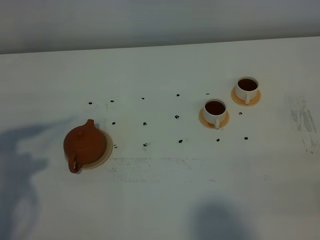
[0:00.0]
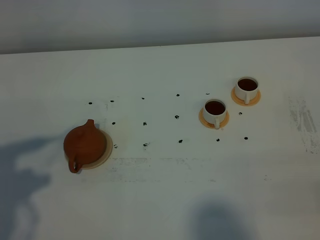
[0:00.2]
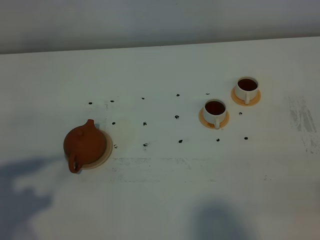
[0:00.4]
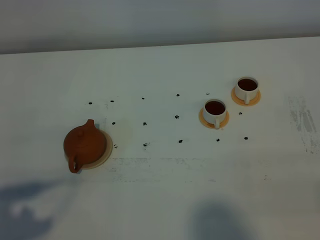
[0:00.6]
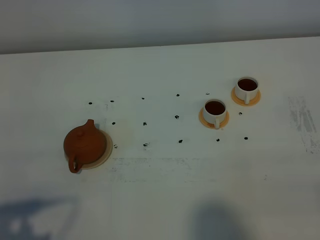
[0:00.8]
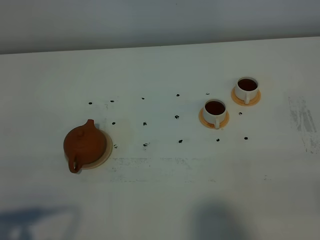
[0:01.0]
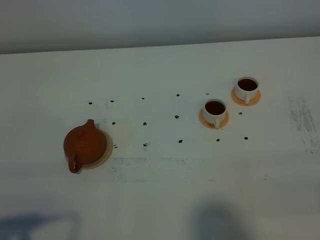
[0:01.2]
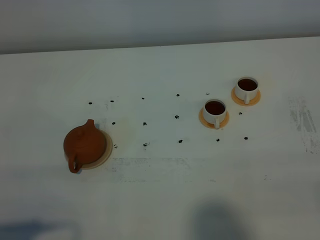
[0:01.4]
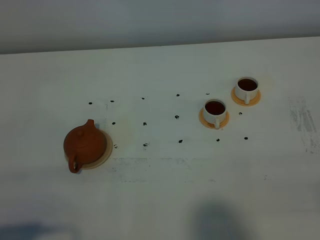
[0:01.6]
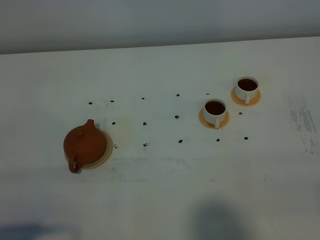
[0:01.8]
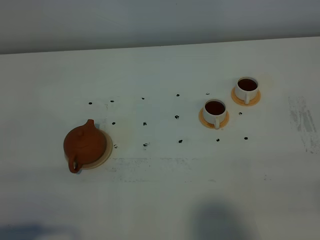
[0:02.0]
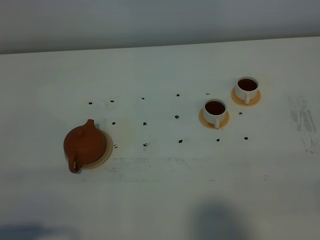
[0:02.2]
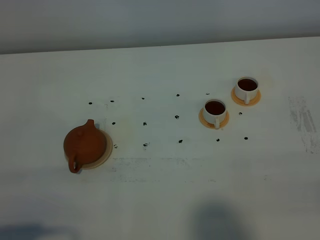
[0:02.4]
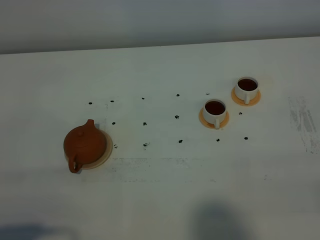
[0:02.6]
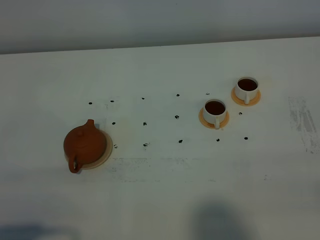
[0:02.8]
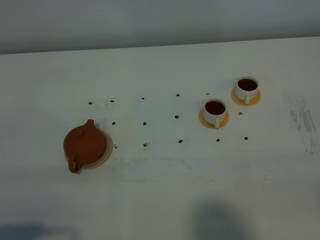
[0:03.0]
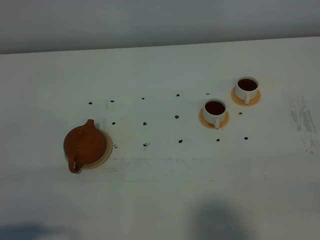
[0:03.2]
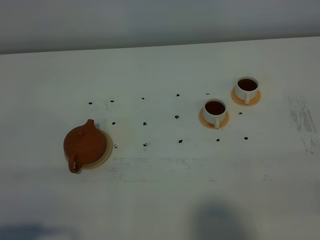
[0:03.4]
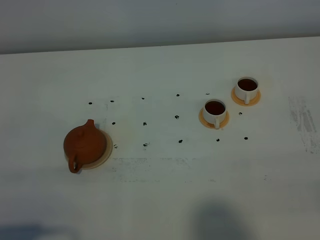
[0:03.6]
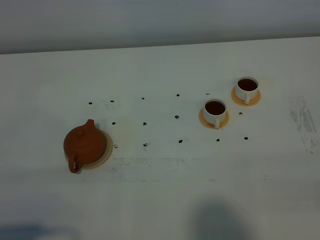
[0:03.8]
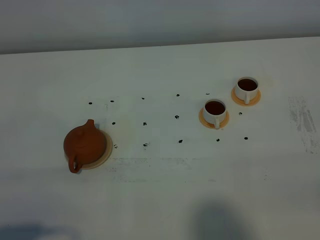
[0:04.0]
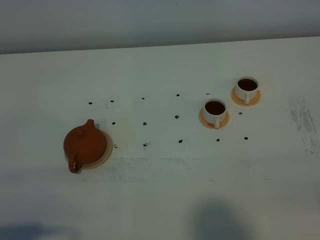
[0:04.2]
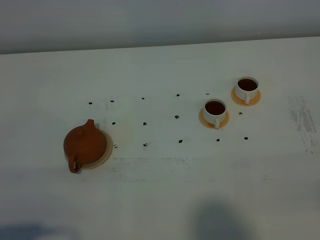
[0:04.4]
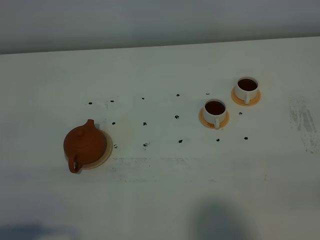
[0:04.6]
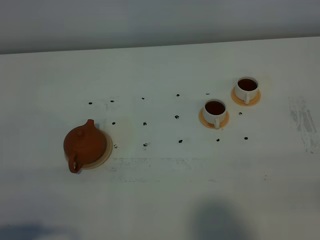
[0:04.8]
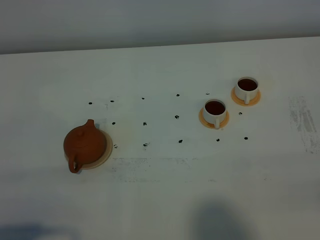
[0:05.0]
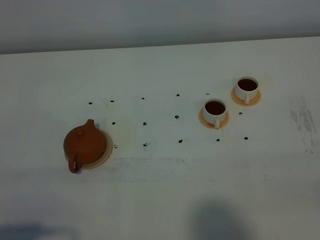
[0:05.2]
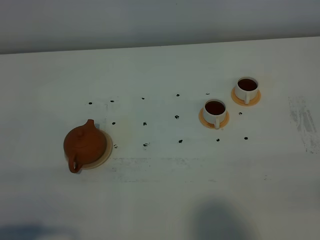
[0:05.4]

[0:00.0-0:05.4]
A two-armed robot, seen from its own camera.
Task of the whole recording: grasp the brown teapot and pour the tea into the two white teacups one by one, put the brown teapot back in its original place.
0:00.0 to 0:01.4: The left gripper shifts some 15 cm backward.
0:01.4 to 0:02.8: Both grippers stay about where they are.
0:04.0 to 0:05.4: Neither gripper changes place.

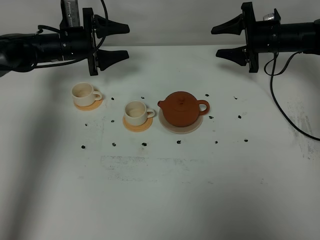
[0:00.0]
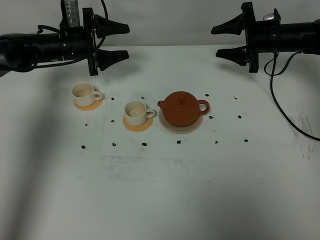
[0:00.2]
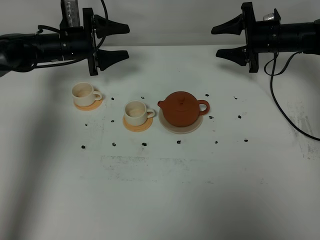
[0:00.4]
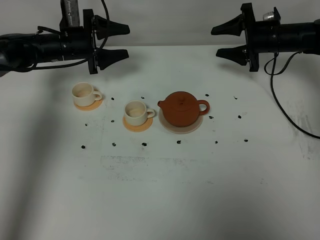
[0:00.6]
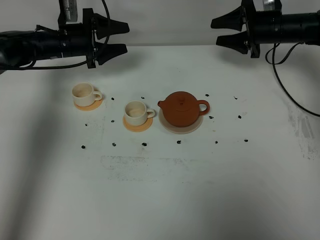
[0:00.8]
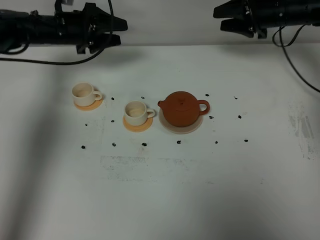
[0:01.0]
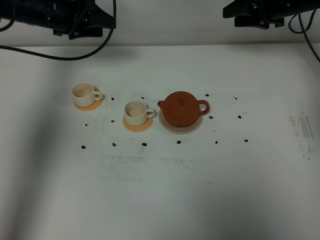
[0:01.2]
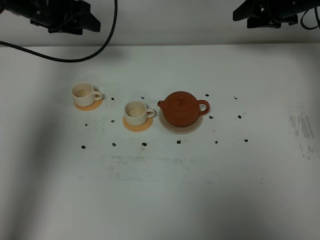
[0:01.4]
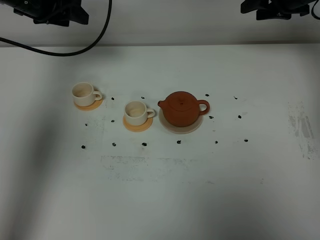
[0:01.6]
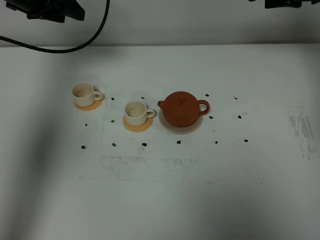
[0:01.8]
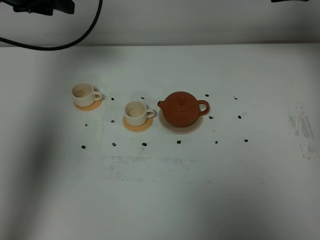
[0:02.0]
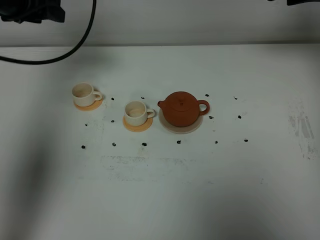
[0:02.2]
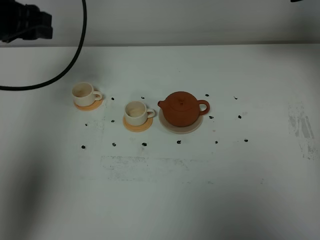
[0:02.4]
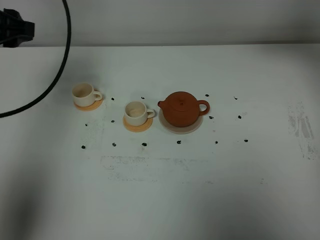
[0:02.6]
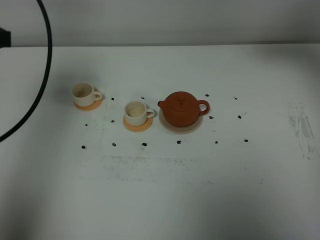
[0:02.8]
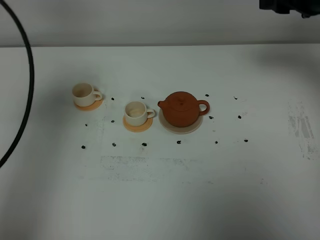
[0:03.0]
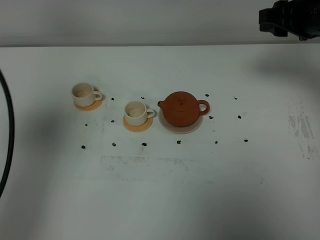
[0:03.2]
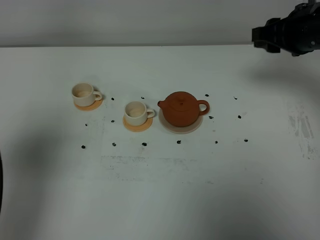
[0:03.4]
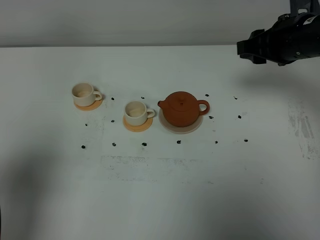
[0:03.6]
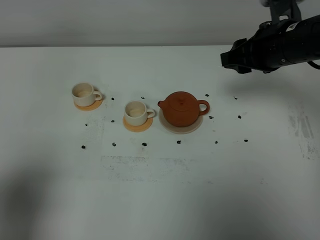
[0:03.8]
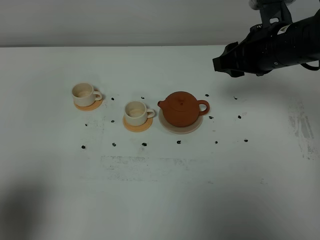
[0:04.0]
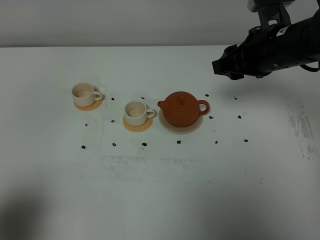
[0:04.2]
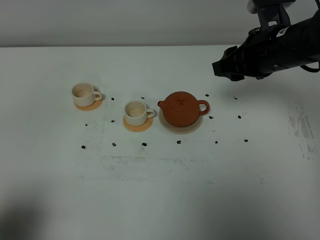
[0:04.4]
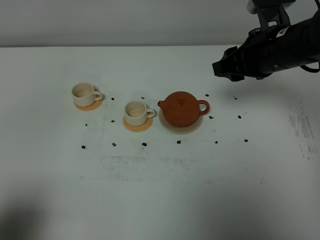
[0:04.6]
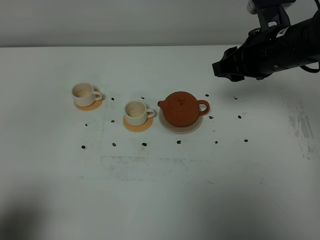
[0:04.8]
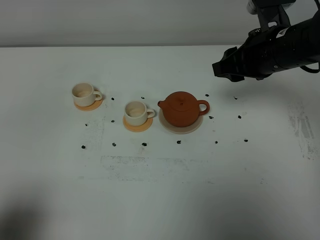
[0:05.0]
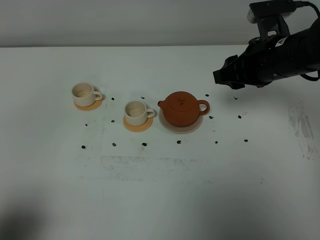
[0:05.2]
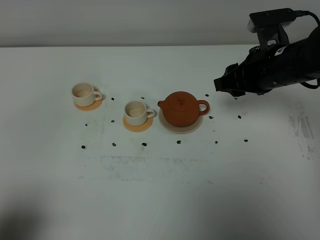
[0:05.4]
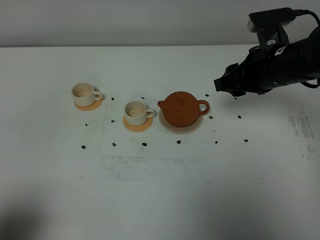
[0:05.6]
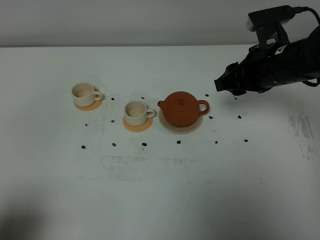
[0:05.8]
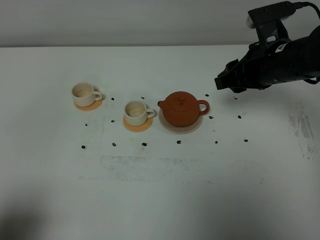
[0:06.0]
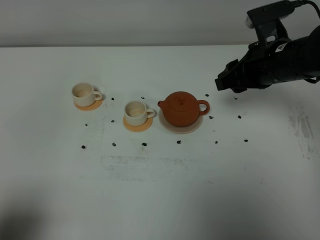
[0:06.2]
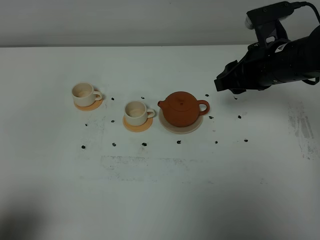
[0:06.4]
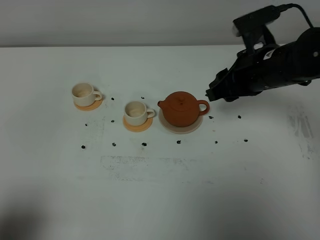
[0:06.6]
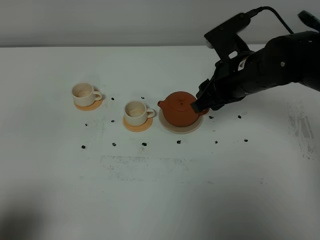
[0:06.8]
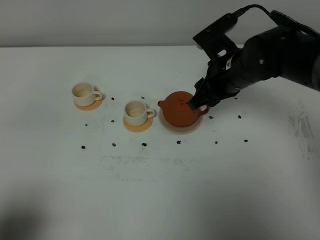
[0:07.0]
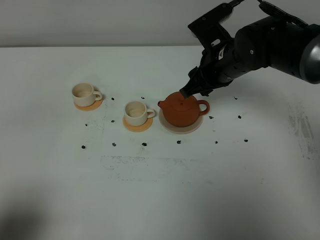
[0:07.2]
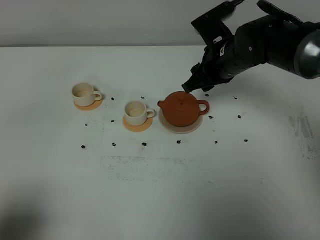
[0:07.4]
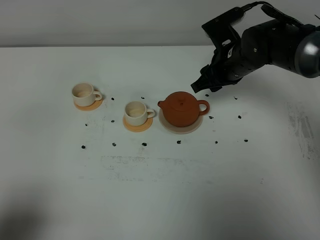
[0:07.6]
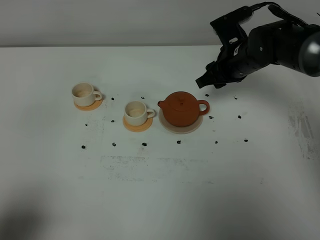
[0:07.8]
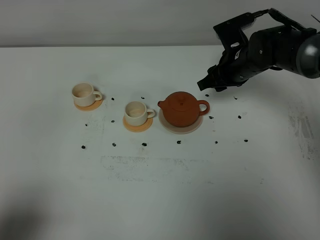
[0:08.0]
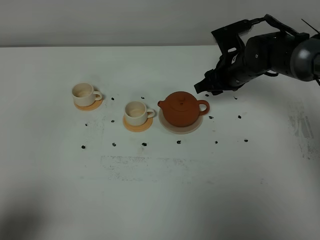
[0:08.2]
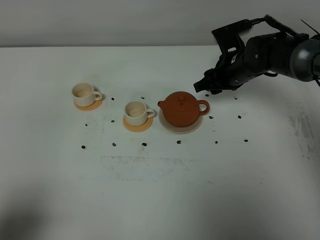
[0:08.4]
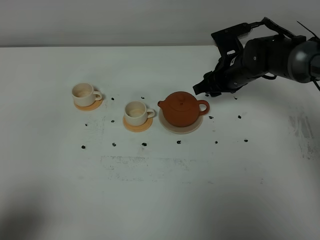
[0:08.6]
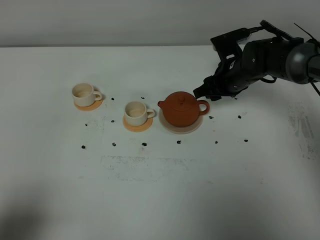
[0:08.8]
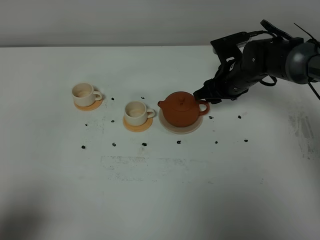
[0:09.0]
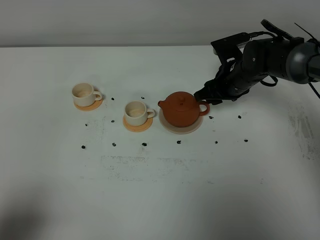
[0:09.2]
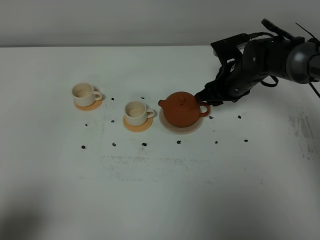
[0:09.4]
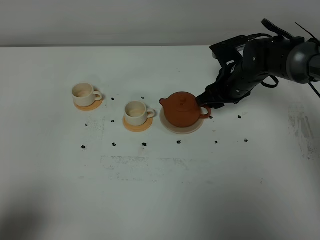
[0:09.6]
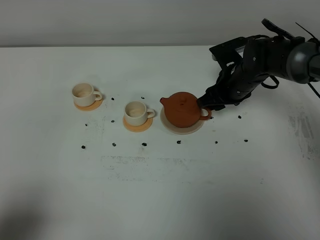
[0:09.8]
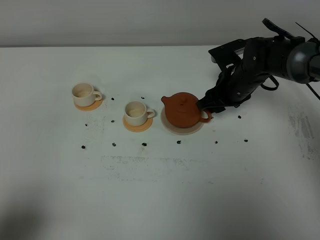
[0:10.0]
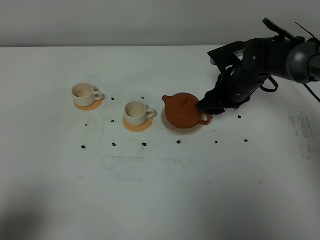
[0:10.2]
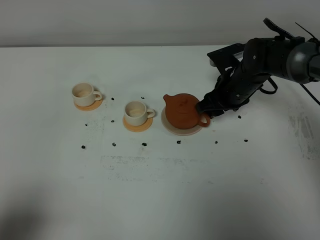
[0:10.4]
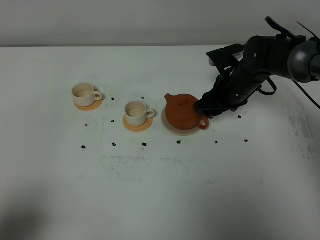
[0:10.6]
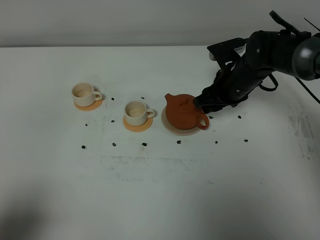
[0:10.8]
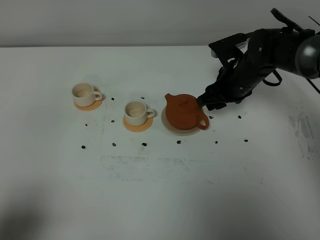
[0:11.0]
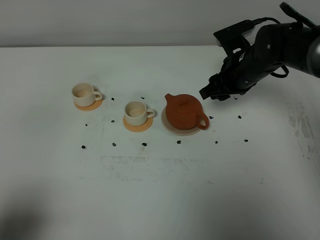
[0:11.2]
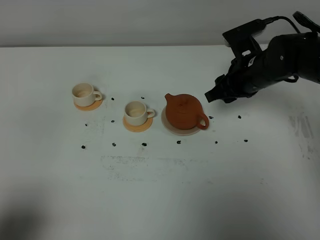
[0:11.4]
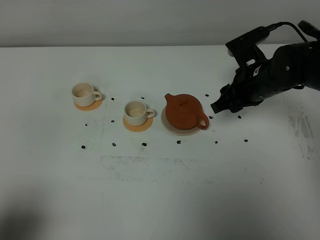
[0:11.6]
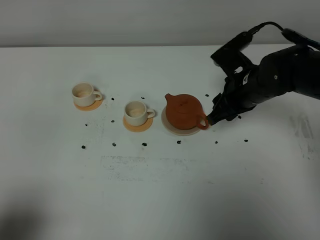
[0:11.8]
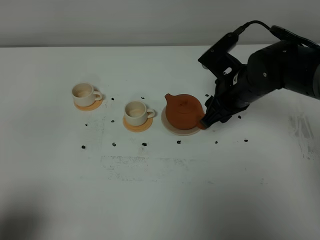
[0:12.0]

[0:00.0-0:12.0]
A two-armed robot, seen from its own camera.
Task of the whole recording: grasp the brown teapot and pour the tea into the two white teacups one by one, put the brown teapot back in its original place.
0:00.0 to 0:01.6: Both grippers move upward, about 15 cm.
0:01.6 to 0:03.0: The right gripper moves backward and upward, roughly 15 cm. Meanwhile the left gripper goes some 25 cm backward.
0:03.0 to 0:04.4: The right gripper travels to the left and downward by roughly 10 cm. The left gripper is displaced backward and downward by some 25 cm, and closes.
0:04.4 to 0:06.0: There are only small adjustments of the grippers.
0:06.0 to 0:07.6: The right gripper travels forward and downward by roughly 10 cm.
0:07.6 to 0:09.0: The right gripper moves downward, about 5 cm.
0:09.0 to 0:10.4: There are only small adjustments of the grippers.
0:10.4 to 0:12.0: The right gripper travels backward and upward by about 10 cm.

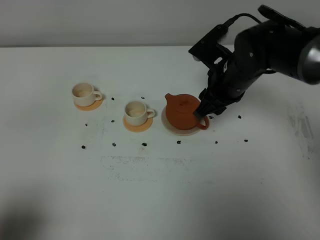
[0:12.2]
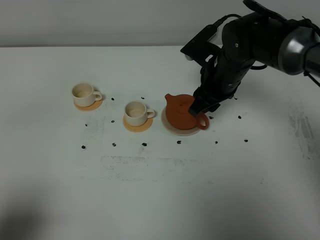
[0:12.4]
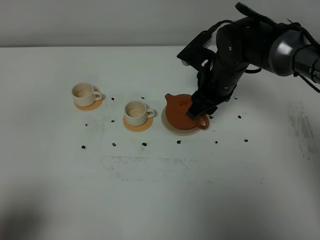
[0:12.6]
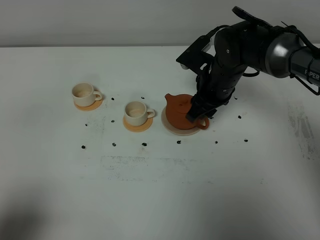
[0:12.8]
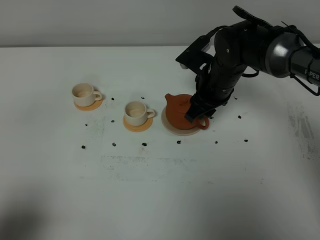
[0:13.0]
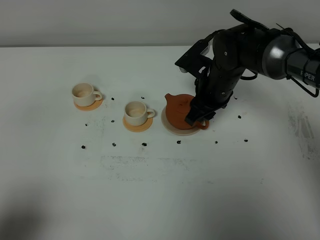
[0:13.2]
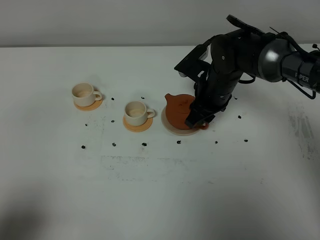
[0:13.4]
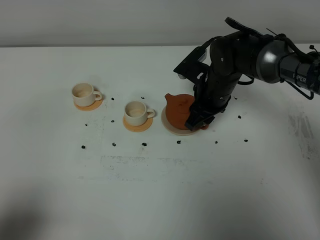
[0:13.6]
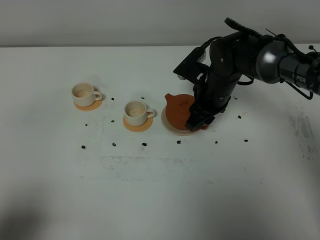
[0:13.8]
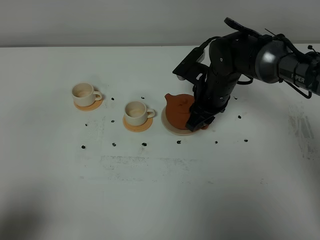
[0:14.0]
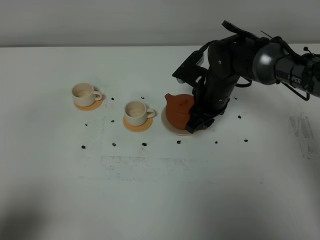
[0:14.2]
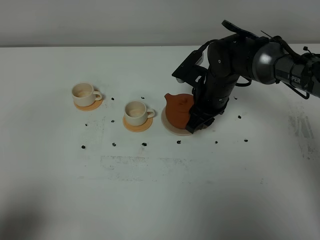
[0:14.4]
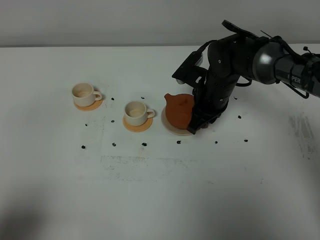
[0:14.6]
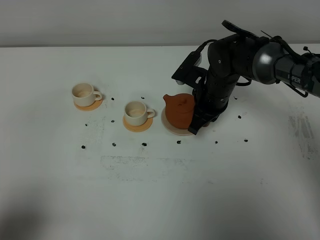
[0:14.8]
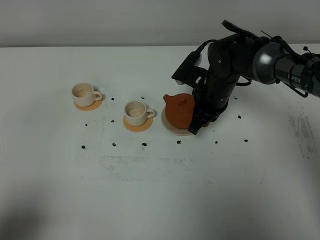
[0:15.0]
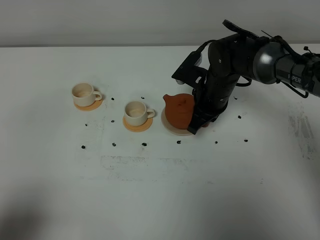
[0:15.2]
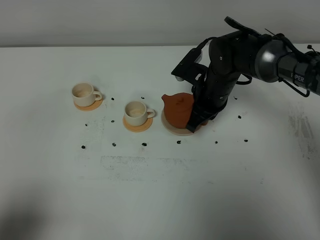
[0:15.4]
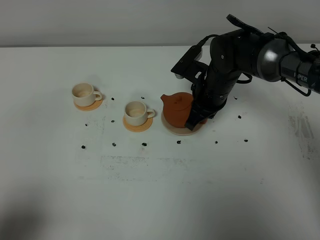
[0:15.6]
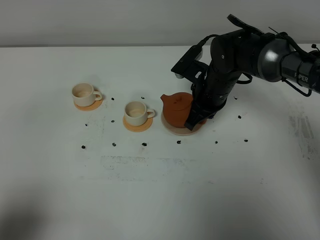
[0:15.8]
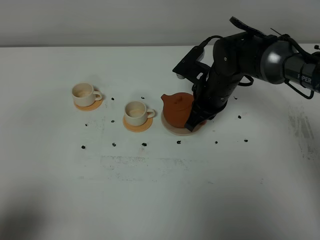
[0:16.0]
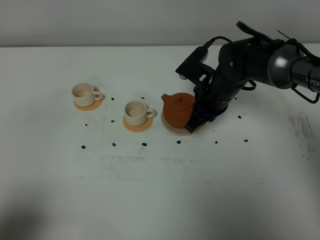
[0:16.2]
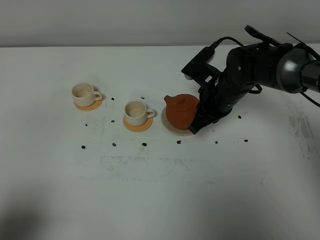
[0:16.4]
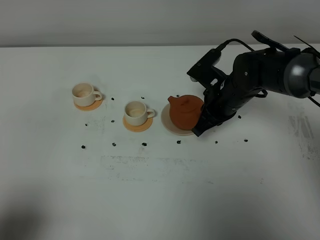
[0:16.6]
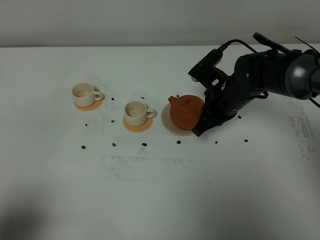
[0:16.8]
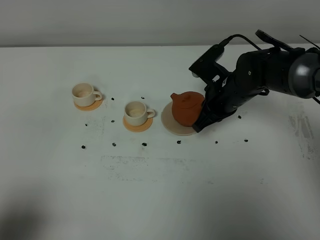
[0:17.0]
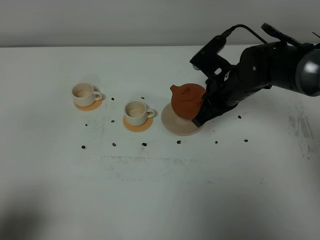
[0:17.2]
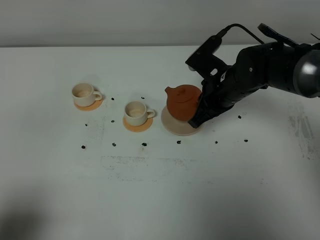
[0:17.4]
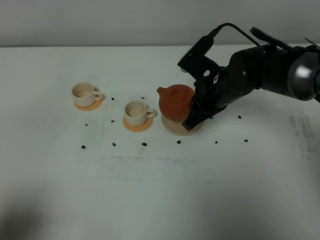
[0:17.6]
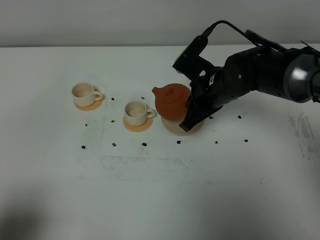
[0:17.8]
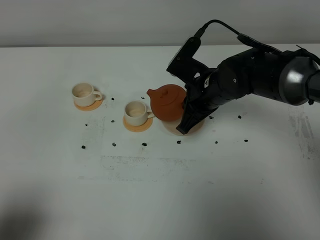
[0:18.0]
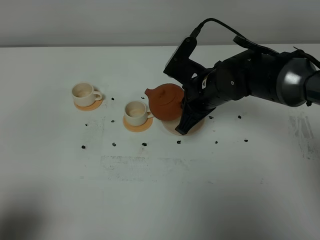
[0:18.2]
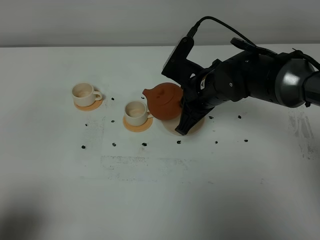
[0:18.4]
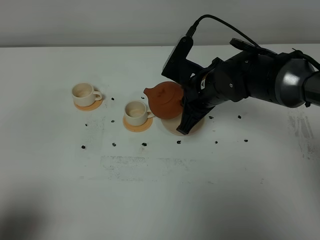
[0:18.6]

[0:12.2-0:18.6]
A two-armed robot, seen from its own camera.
Task of the whole recording: grasp the brown teapot and pour the tea into the two white teacups one by one, put the brown teapot back in its original place.
Step, 0:12.2 to 0:17.0: Pick up the teapot with the right gripper.
0:12.2 to 0:13.8: The right gripper heads downward, covering roughly 5 cm.
0:13.8 to 0:15.4: The right gripper closes its fingers.
0:15.4 to 0:17.0: The grippers move only a little.
0:17.0 to 0:18.6: The right gripper shifts by roughly 5 cm.
